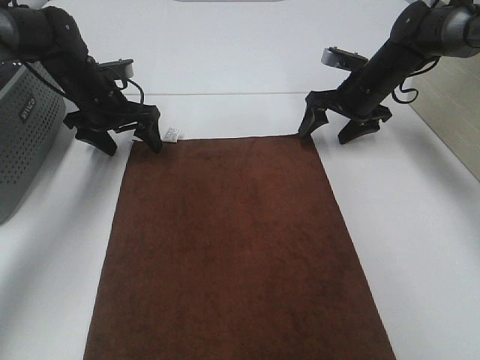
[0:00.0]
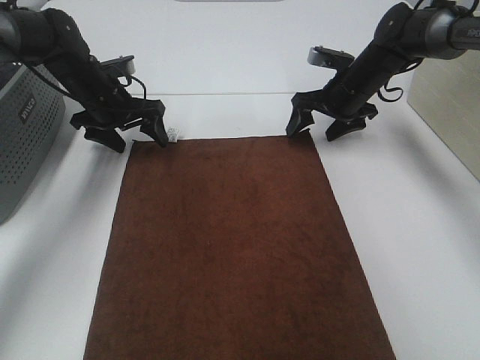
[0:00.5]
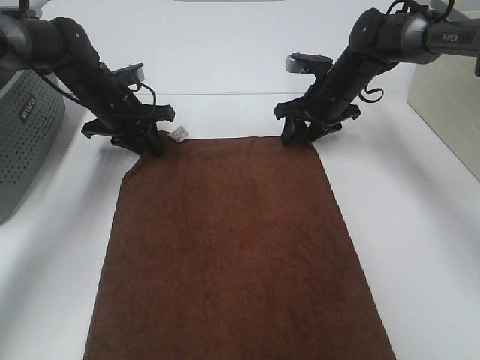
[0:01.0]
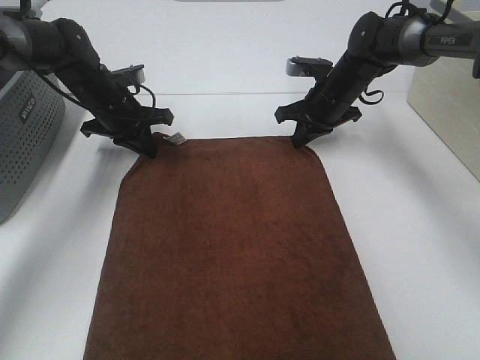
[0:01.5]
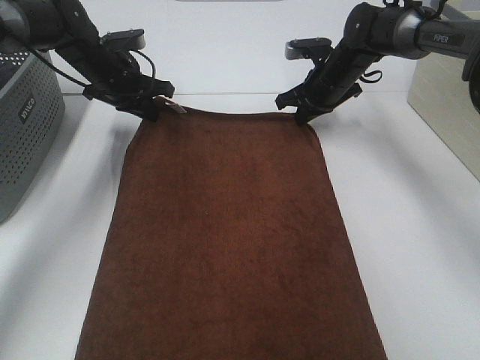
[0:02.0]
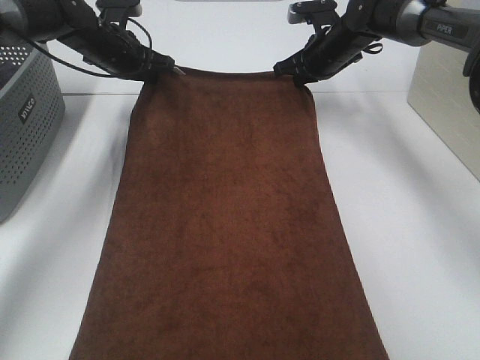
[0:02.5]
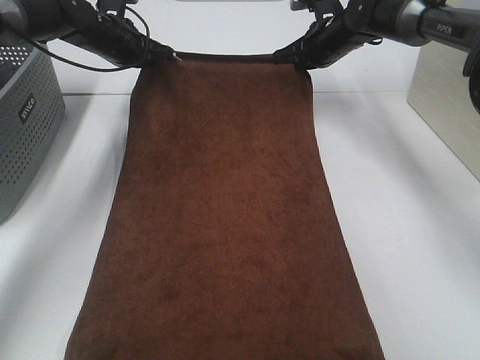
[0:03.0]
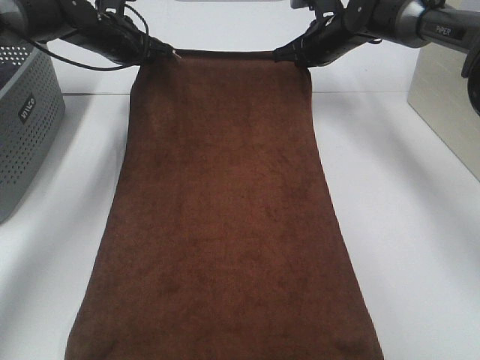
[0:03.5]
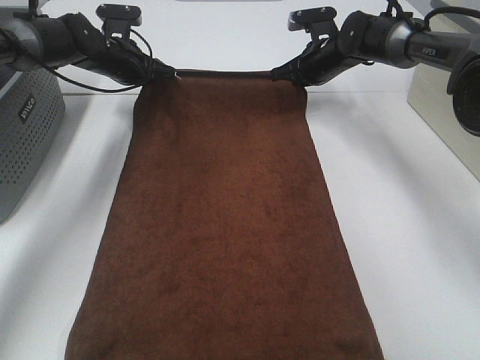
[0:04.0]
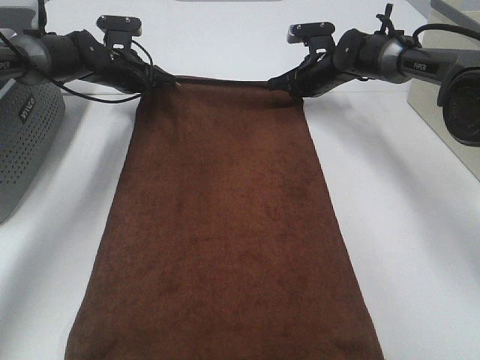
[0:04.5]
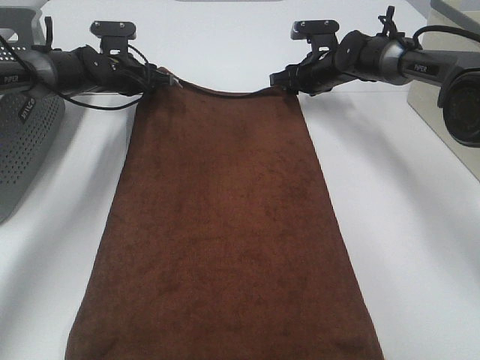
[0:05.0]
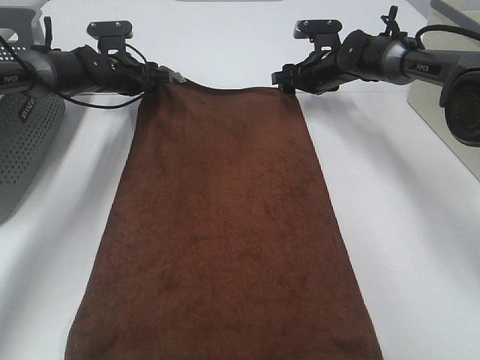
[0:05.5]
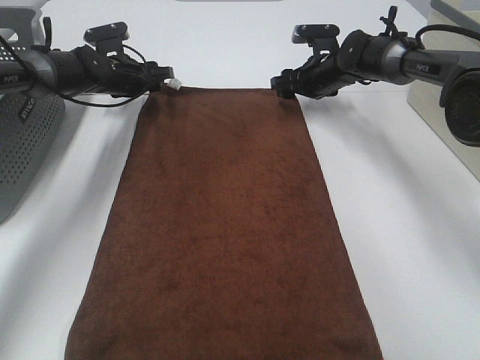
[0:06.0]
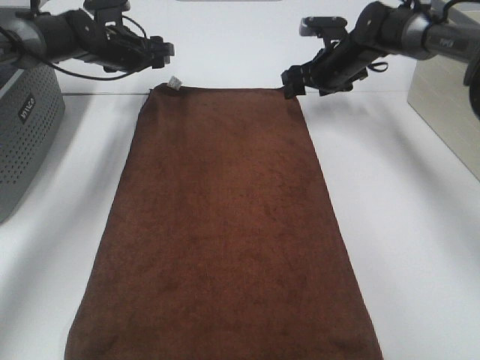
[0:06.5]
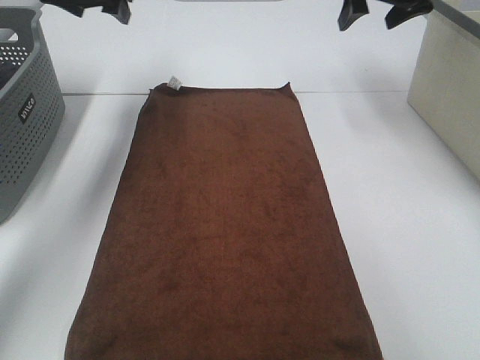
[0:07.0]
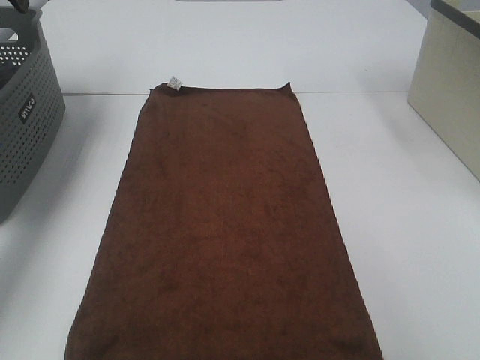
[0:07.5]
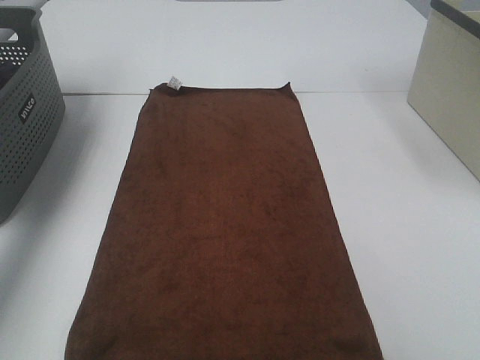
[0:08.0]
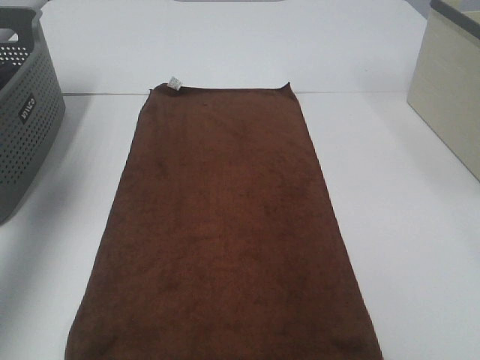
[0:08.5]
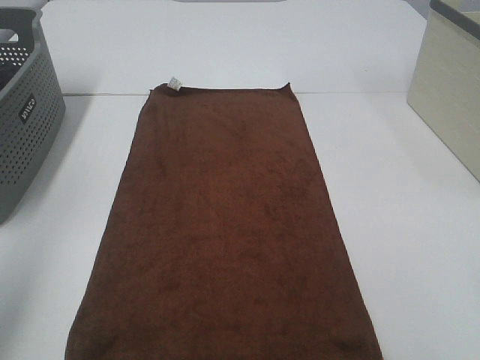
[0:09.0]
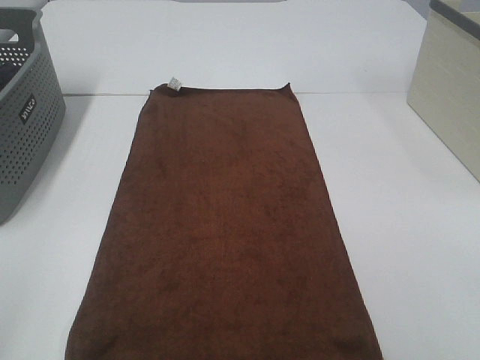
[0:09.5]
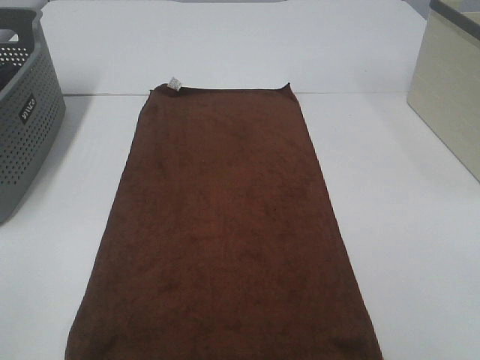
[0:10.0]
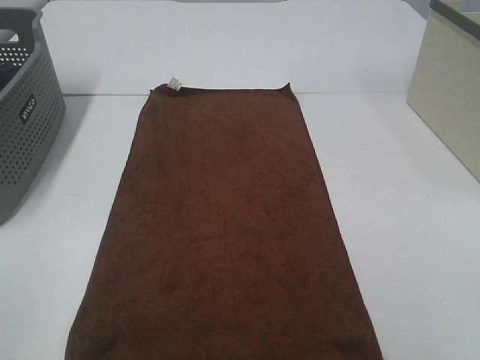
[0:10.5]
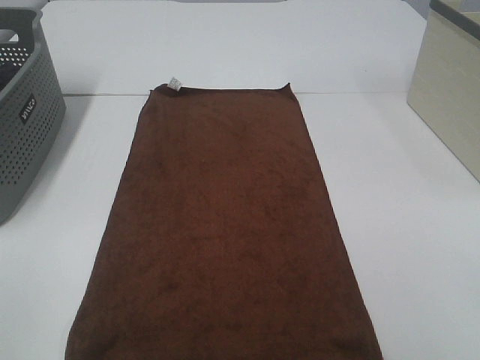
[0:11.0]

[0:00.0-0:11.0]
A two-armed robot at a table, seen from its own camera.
Task of the whole recording: Remove the towel and place it.
0:00.0 to 0:02.0: The left gripper closes up; the right gripper heads to the left, covering about 5 cm, and closes.
0:02.0 to 0:03.5: The right gripper shifts by approximately 5 cm.
0:03.5 to 0:05.5: The two grippers go some 5 cm downward. The left gripper opens, while the right gripper opens up.
0:05.5 to 0:07.5: The left gripper moves upward and to the left, about 25 cm, while the right gripper travels upward, to the right and backward by about 30 cm.
0:07.5 to 0:09.0: The grippers both shift backward by roughly 40 cm.
0:09.0 to 0:11.0: The left gripper is displaced backward and downward by some 15 cm.

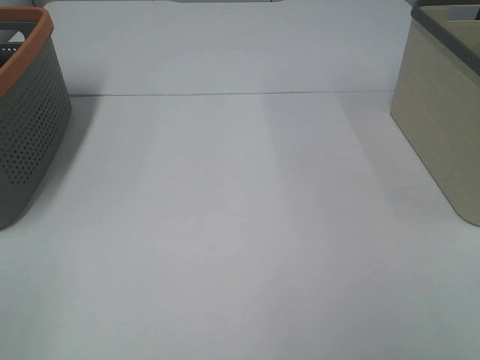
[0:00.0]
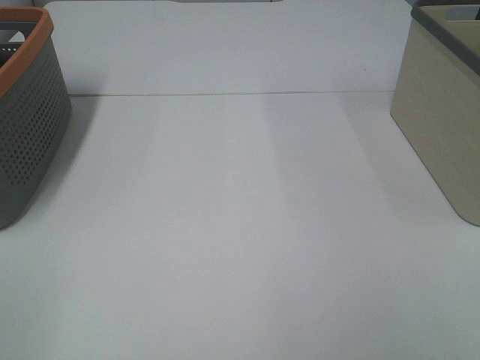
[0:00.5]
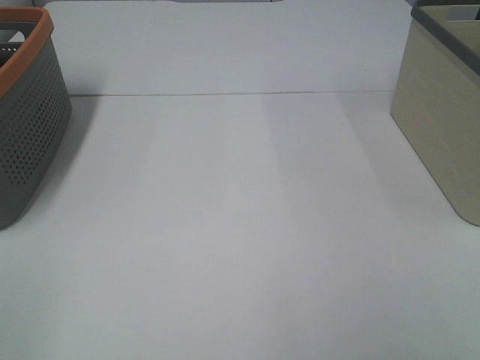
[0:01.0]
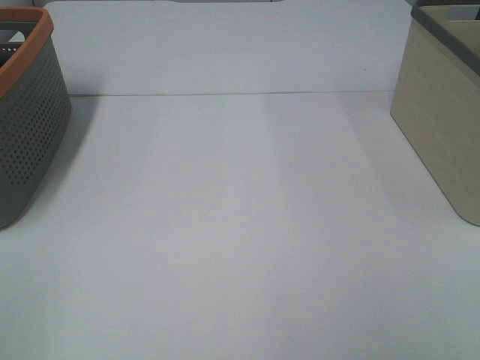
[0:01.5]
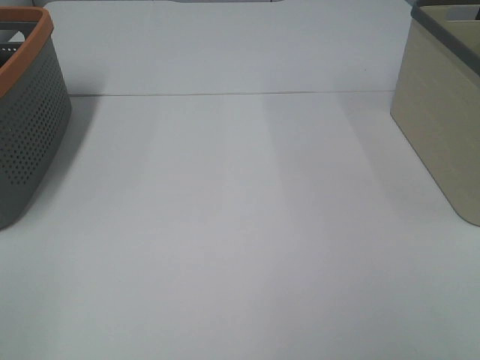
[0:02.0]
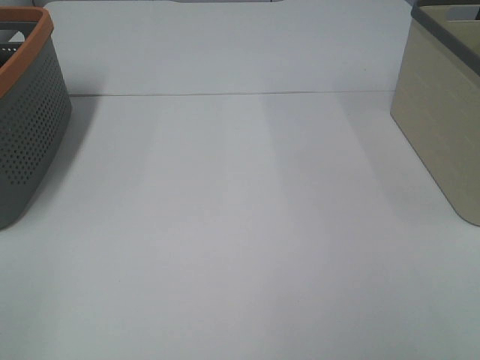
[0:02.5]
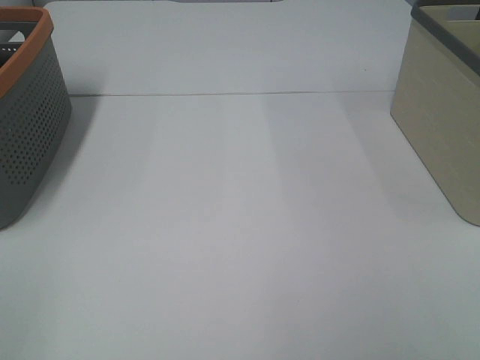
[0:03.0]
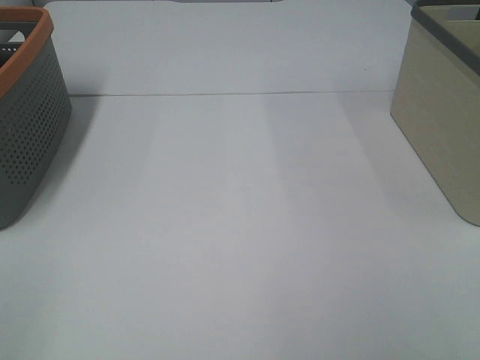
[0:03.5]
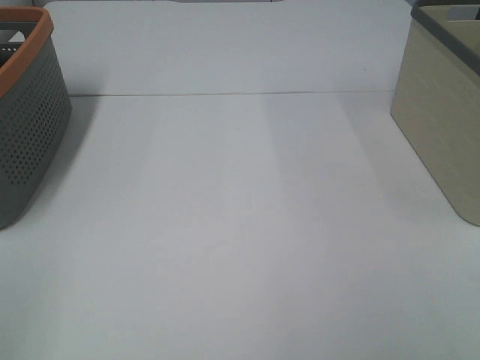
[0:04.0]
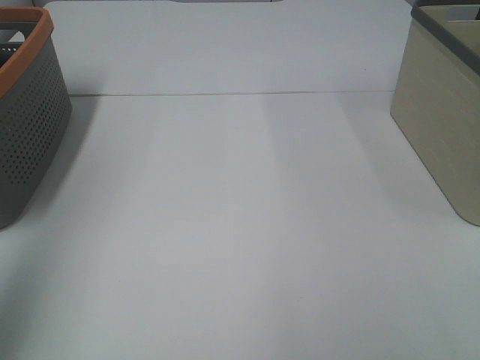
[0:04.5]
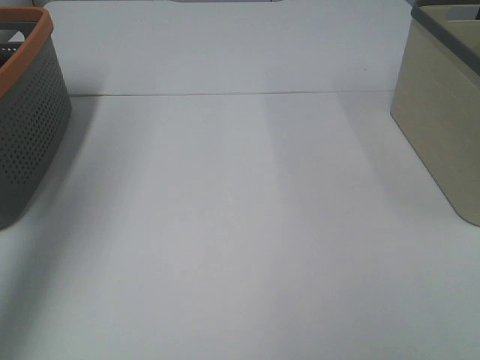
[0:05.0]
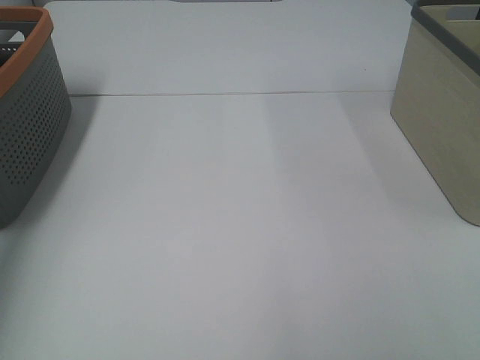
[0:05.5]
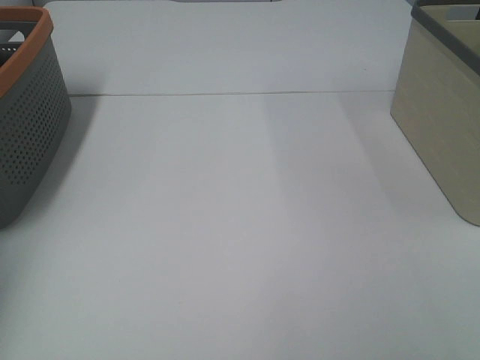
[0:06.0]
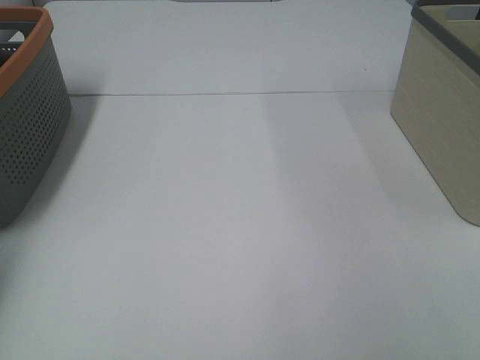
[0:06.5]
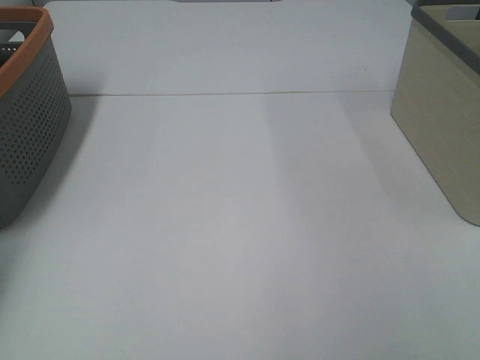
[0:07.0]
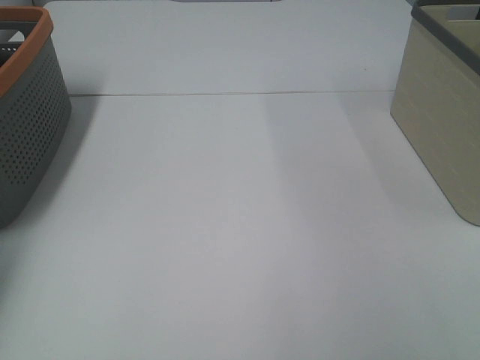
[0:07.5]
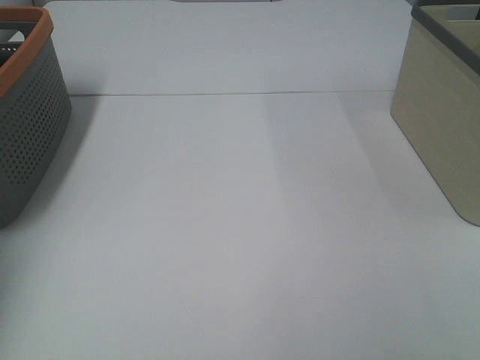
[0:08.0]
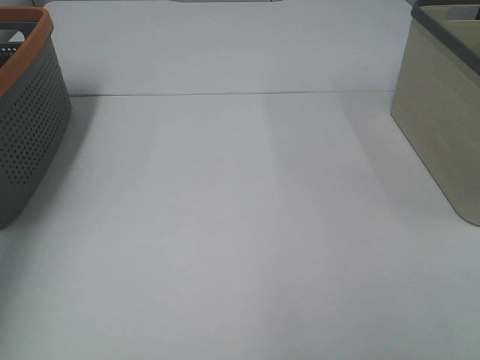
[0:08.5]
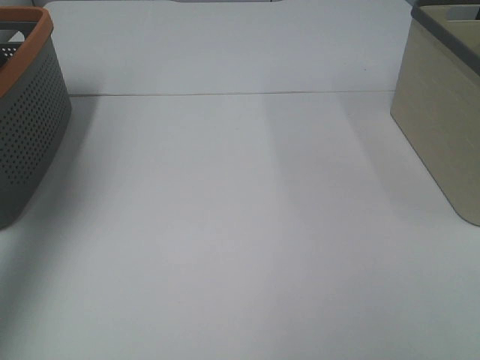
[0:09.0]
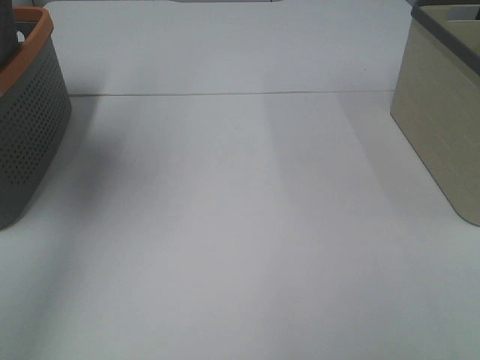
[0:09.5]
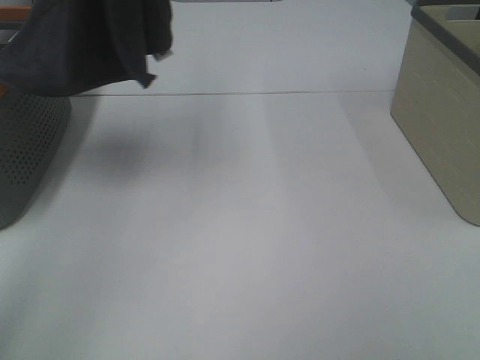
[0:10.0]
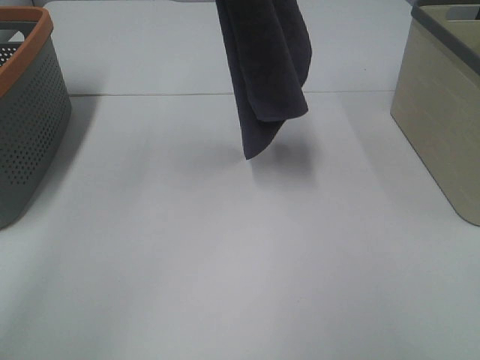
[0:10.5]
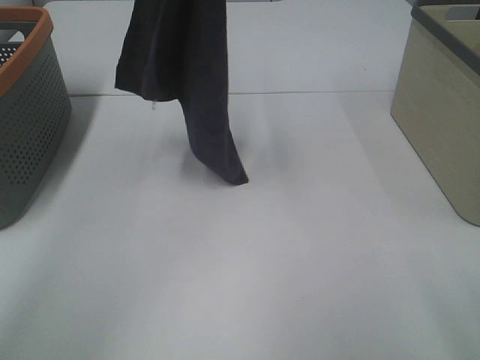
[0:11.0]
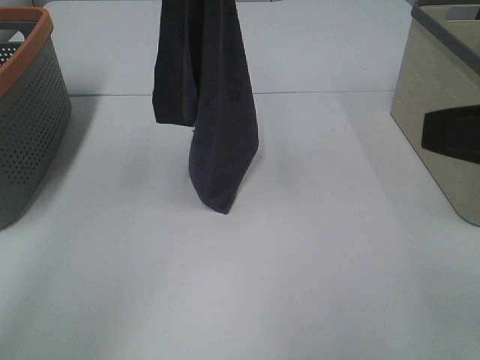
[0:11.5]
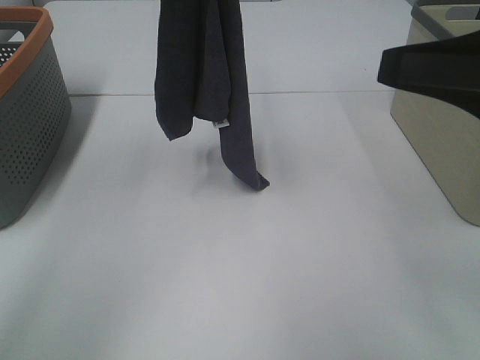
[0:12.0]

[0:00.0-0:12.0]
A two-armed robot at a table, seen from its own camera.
Task of the whole recording: Remove the towel and place it.
0:00.0 to 0:02.0: Both grippers stay about where they are.
0:04.0 to 0:06.0: The left gripper travels forward by some 40 cm.
0:08.0 to 0:10.0: The left gripper heads upward and to the right, covering some 35 cm.
0:10.0 to 0:12.0: The left gripper moves to the right and downward, some 10 cm. Meanwhile the right gripper travels forward by roughly 15 cm.

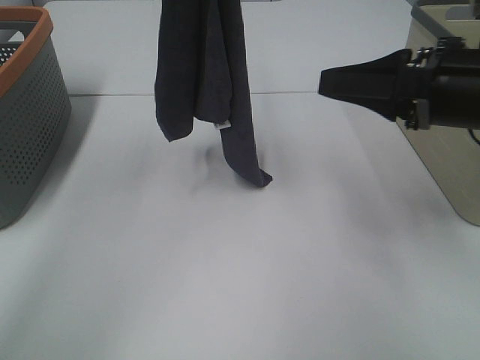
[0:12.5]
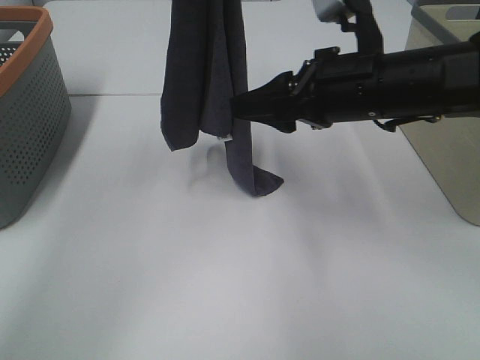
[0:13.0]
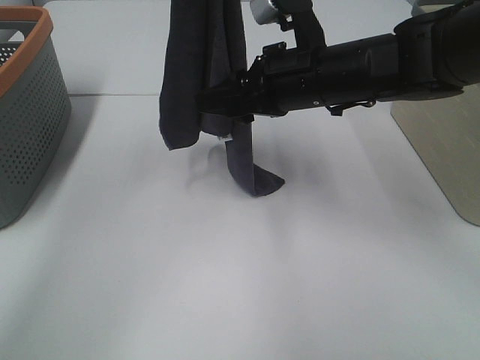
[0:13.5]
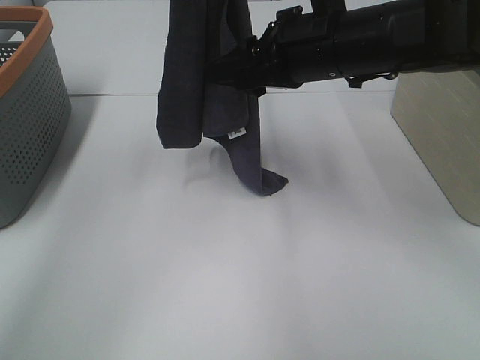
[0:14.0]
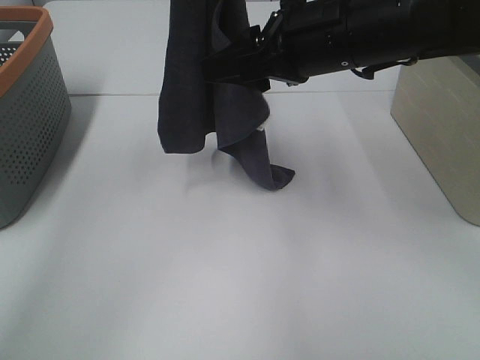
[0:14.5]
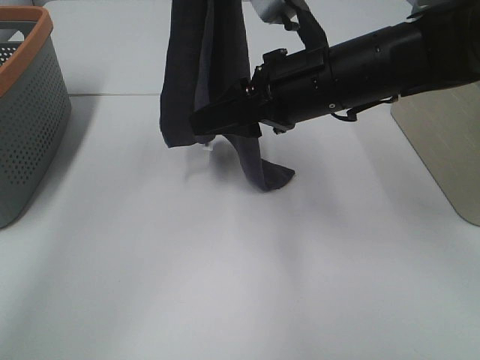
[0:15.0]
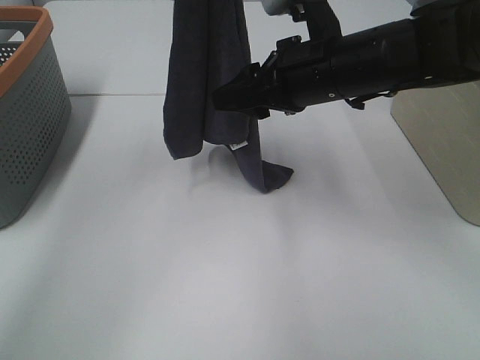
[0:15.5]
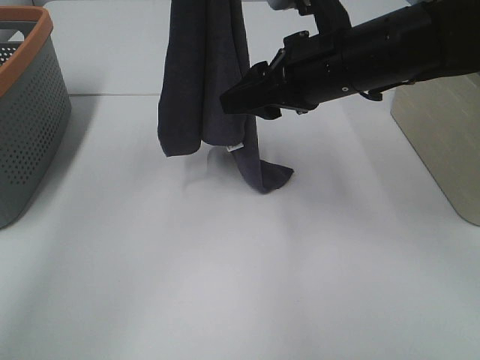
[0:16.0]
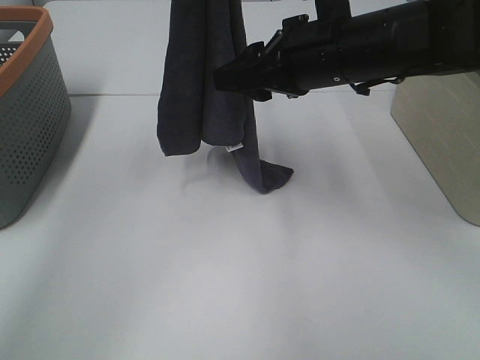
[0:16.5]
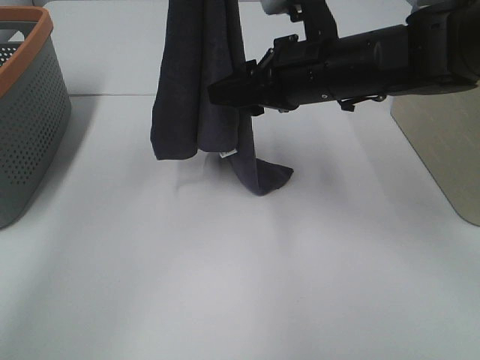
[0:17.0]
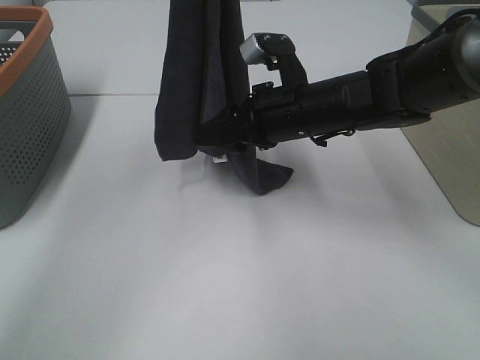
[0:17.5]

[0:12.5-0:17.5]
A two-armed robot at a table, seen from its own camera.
Task of the whole recording: Remove the towel and place it.
Step, 0:12.5 to 0:16.0: Right hand: grab a corner of the grey towel and straighten it.
0:12.5 to 0:15.0: The right gripper goes roughly 15 cm to the left and forward.
0:15.0 to 0:17.5: The right gripper goes roughly 5 cm downward.
